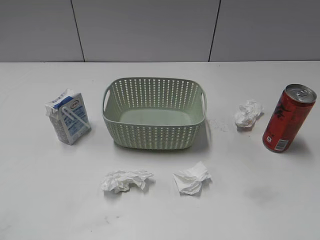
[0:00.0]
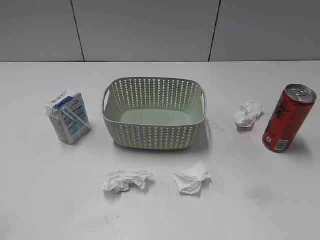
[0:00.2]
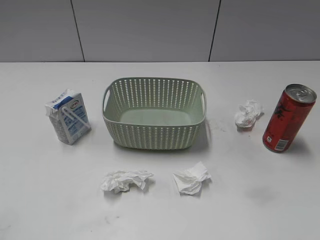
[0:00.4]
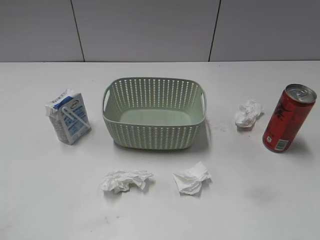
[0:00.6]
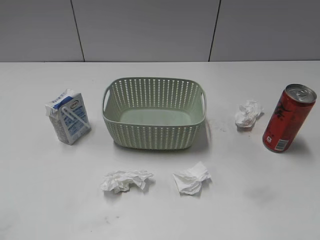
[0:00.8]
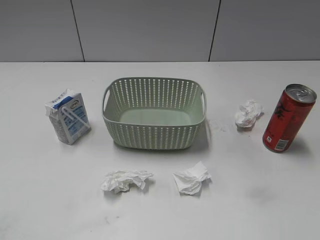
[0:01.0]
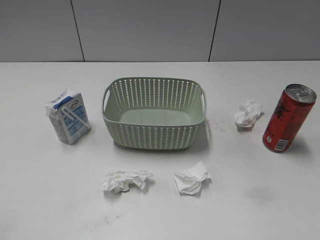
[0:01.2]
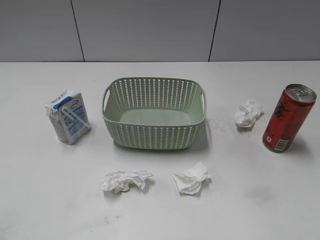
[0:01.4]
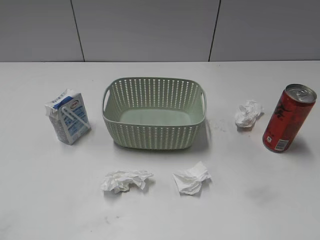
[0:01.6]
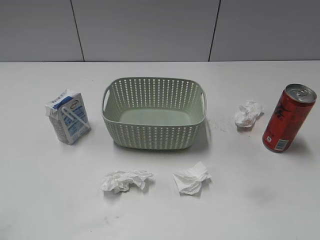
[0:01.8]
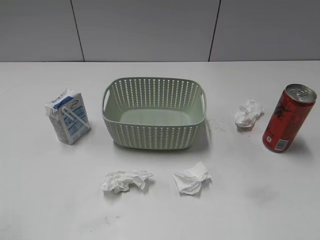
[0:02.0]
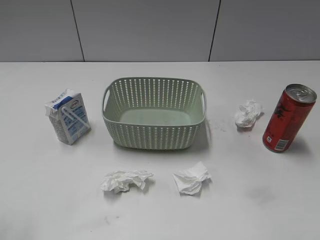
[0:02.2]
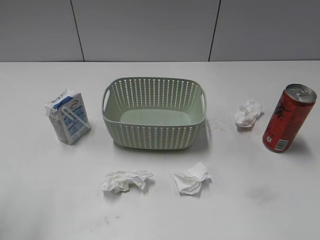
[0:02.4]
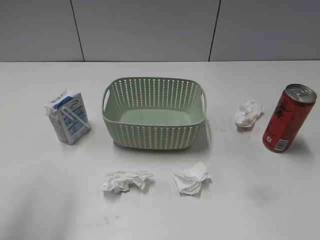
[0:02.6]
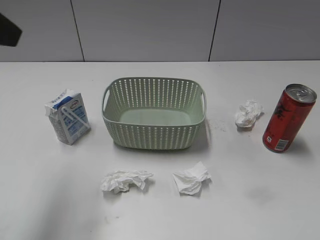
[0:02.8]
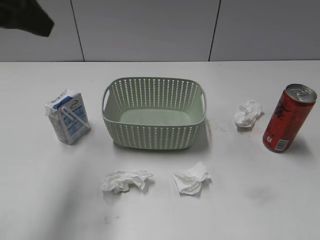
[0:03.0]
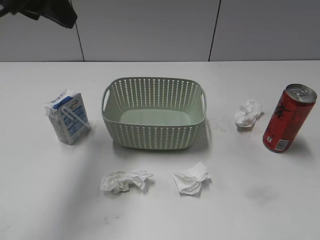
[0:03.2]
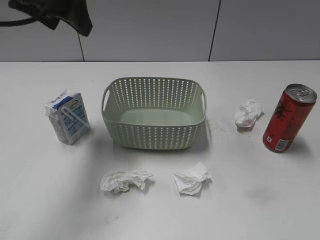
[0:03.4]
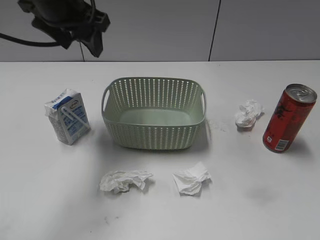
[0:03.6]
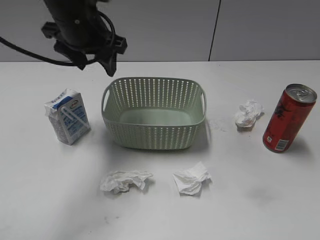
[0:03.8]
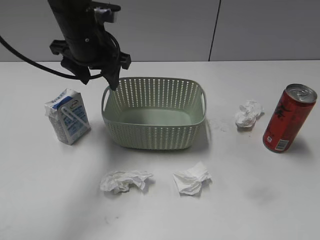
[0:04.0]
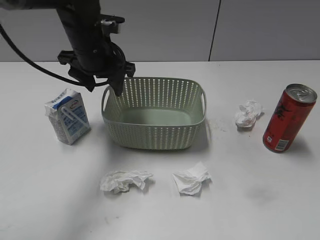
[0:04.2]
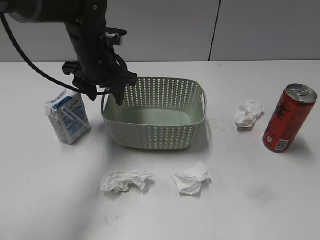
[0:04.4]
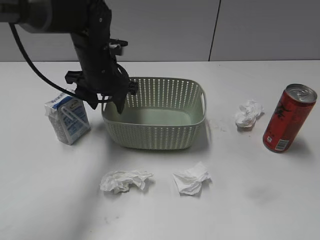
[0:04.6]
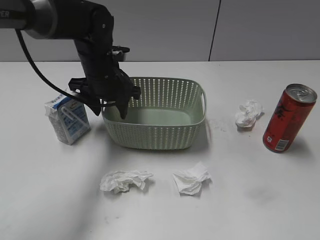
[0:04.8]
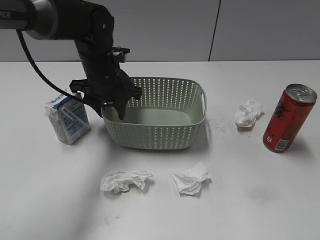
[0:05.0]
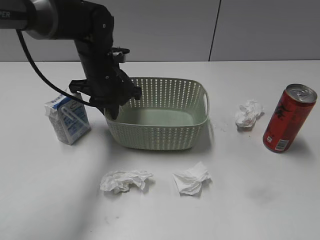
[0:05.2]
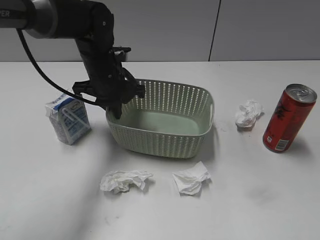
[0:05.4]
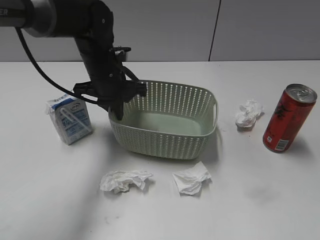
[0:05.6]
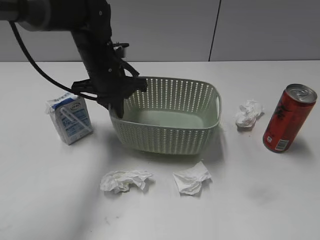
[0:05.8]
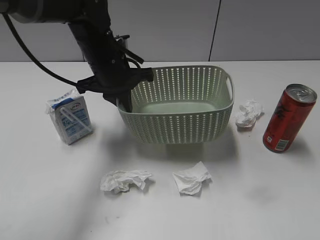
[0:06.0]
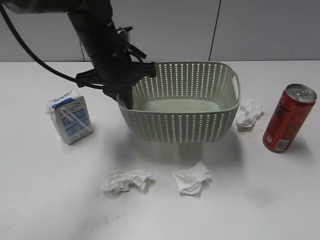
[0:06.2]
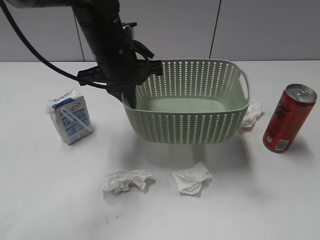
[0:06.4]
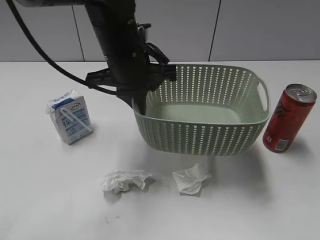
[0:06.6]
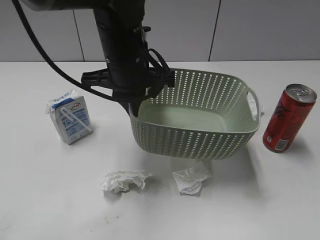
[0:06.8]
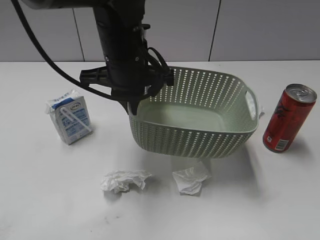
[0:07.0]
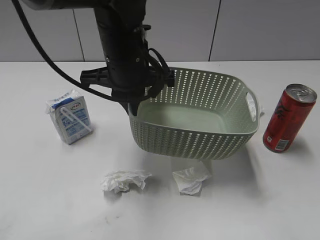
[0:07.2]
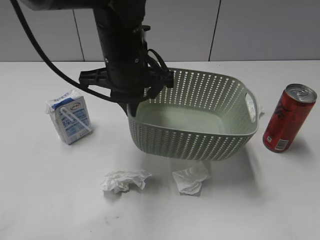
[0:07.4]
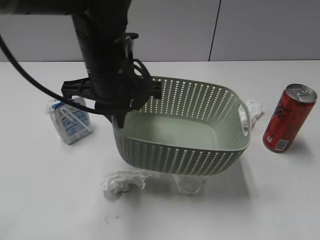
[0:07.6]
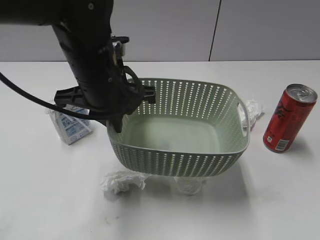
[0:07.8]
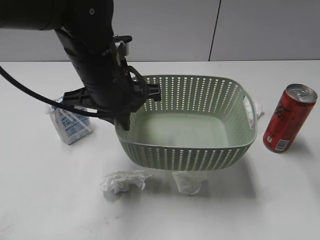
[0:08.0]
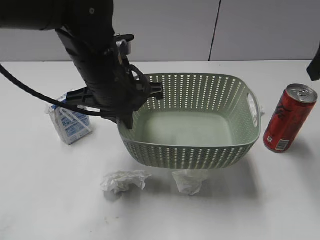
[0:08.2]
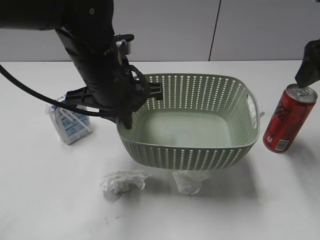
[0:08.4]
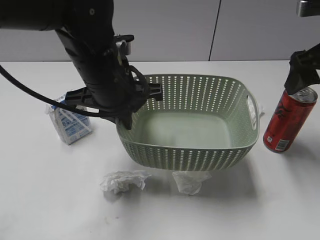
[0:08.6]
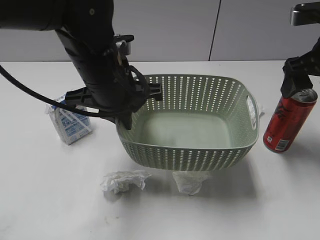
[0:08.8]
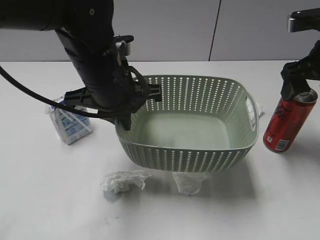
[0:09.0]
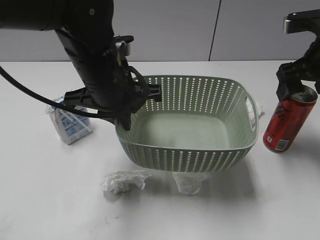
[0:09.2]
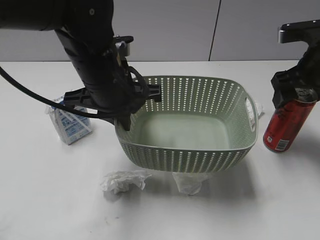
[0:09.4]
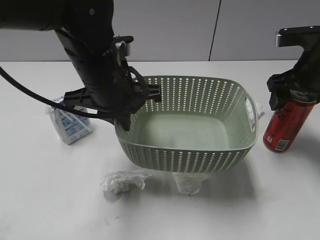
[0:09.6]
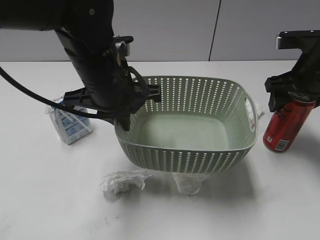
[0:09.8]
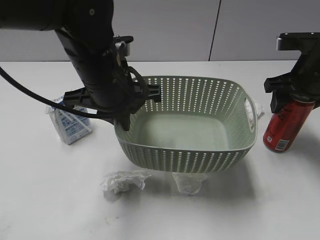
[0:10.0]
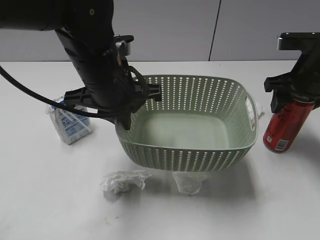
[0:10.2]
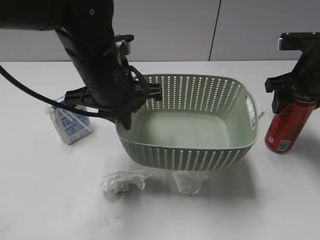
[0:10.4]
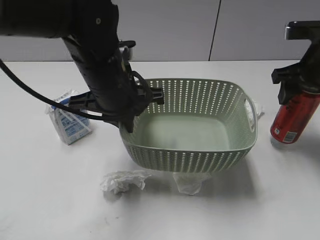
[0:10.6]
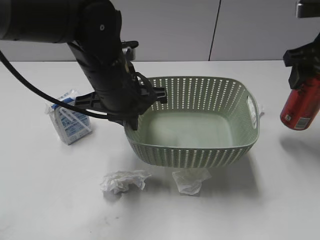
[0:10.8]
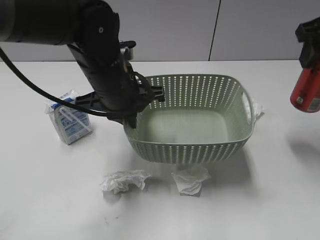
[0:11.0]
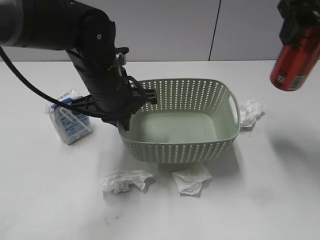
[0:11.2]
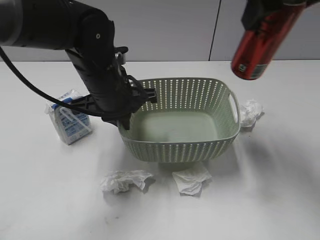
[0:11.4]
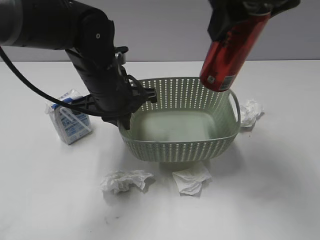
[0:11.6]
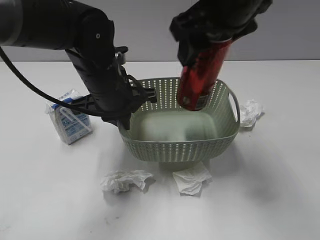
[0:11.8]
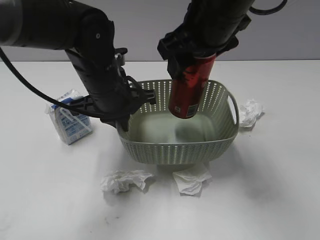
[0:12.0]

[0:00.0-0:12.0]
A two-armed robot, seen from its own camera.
Step, 0:02.8 to 0:05.2: Grasp the basket with left gripper.
Step, 0:05.4 to 0:08.0: Lift the basket with left gripper.
Step, 0:08.2 to 0:10.2: Grasp the cola can with right gripper.
0:01.6 to 0:03.0: The left gripper moves forward and to the right, approximately 25 cm.
0:03.0 to 0:04.4: The left gripper is displaced downward, forward and to the right by some 25 cm.
0:04.4 to 0:06.0: The left gripper closes.
0:06.0 to 0:07.6: The right gripper travels forward and upward by approximately 20 cm, and opens up. Meanwhile the left gripper goes approximately 10 cm backward.
0:07.6 to 0:09.0: The right gripper is displaced forward and downward by some 20 cm.
0:09.0 to 0:10.4: The right gripper closes its fingers.
0:10.4 to 0:12.0: The right gripper is displaced to the left and upward by about 20 cm, while the left gripper changes place by some 5 cm.

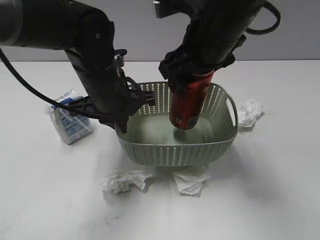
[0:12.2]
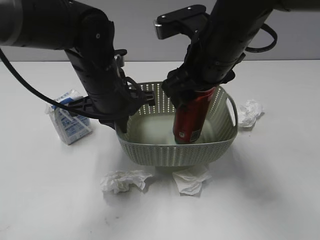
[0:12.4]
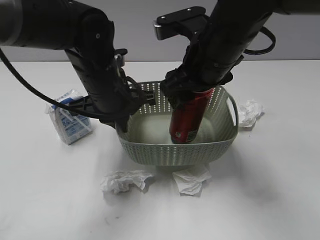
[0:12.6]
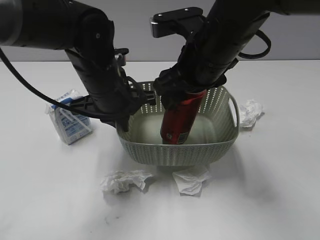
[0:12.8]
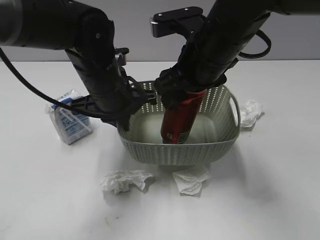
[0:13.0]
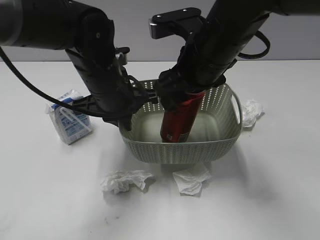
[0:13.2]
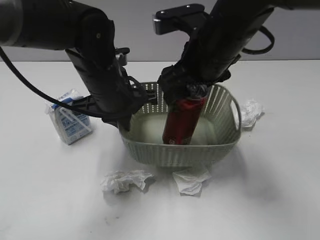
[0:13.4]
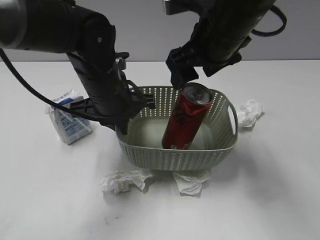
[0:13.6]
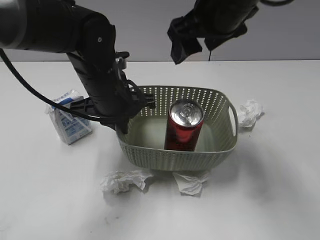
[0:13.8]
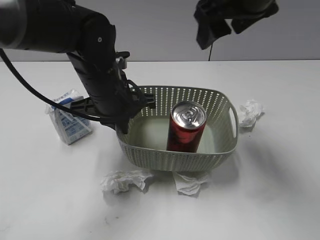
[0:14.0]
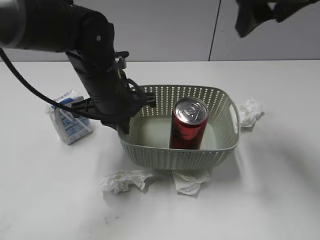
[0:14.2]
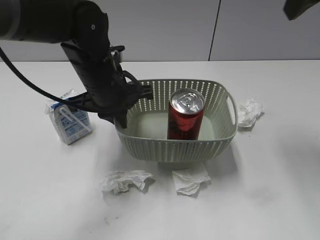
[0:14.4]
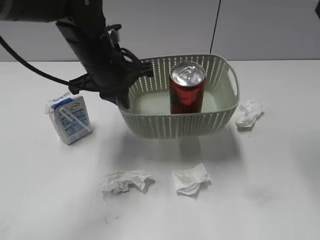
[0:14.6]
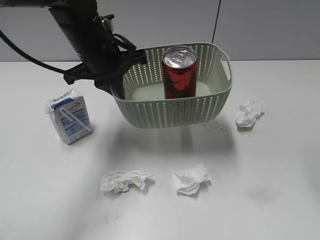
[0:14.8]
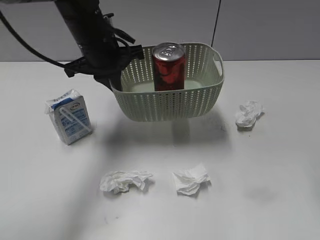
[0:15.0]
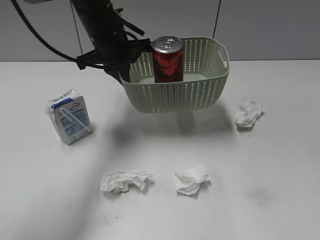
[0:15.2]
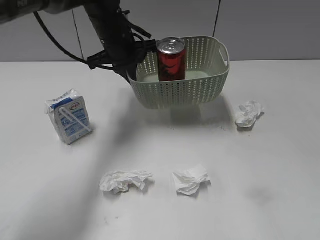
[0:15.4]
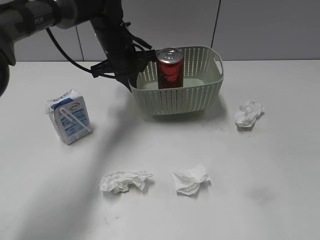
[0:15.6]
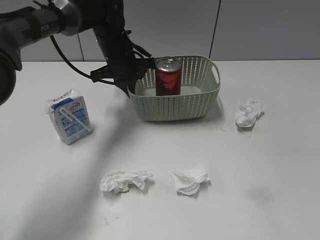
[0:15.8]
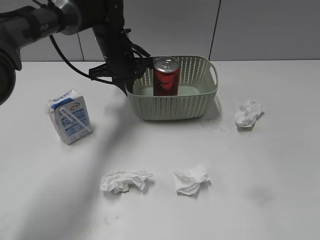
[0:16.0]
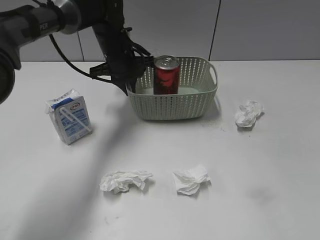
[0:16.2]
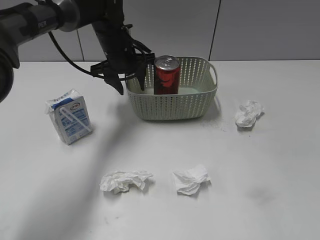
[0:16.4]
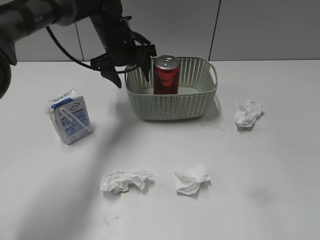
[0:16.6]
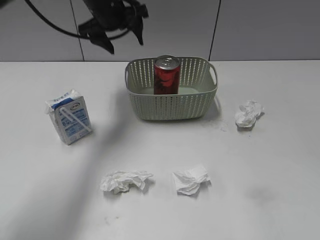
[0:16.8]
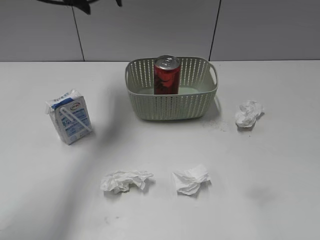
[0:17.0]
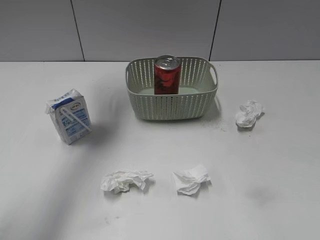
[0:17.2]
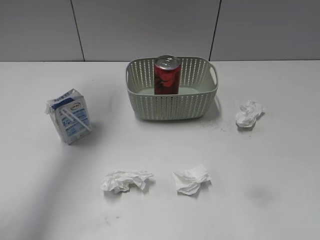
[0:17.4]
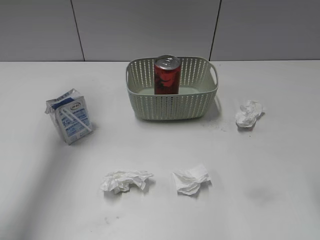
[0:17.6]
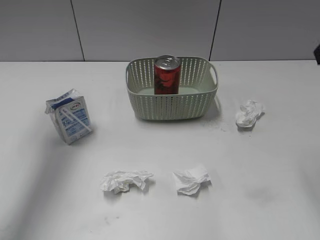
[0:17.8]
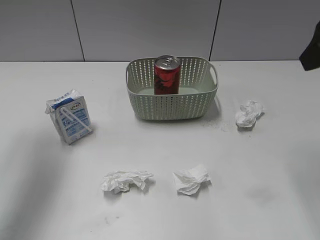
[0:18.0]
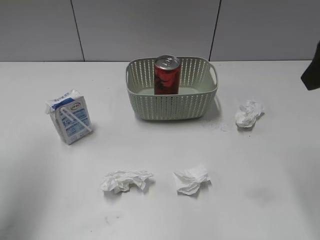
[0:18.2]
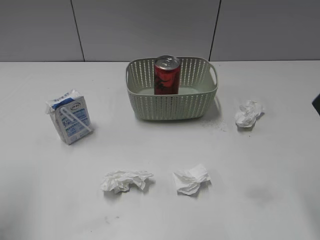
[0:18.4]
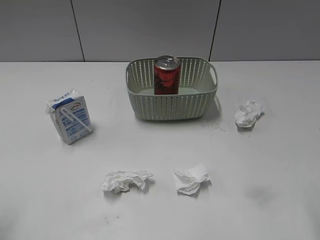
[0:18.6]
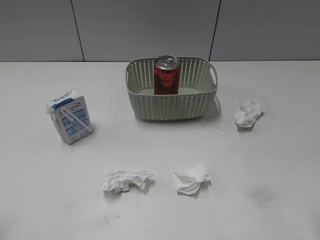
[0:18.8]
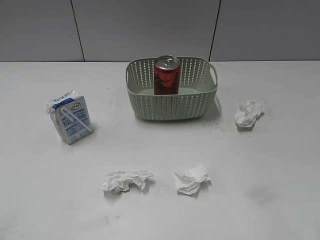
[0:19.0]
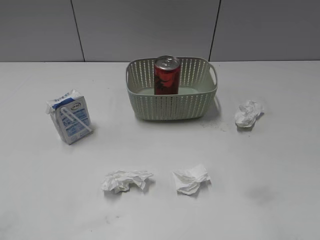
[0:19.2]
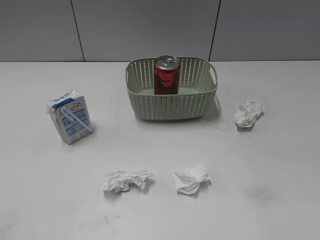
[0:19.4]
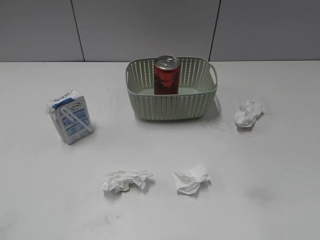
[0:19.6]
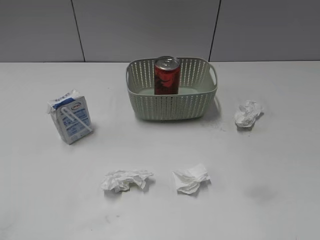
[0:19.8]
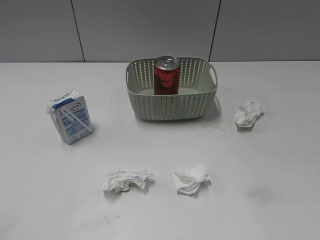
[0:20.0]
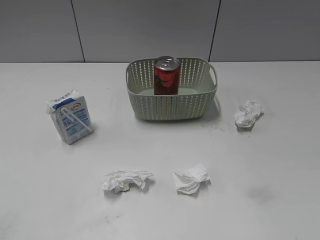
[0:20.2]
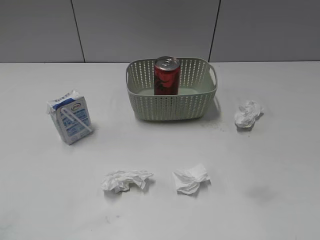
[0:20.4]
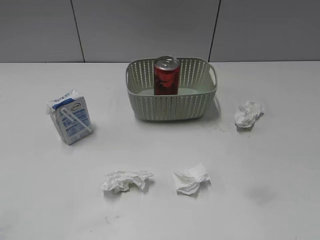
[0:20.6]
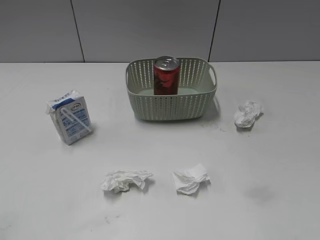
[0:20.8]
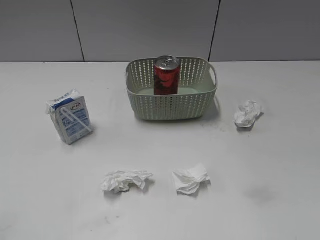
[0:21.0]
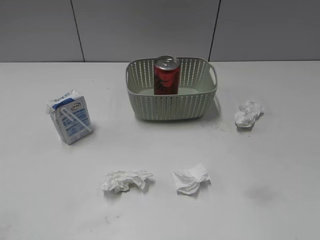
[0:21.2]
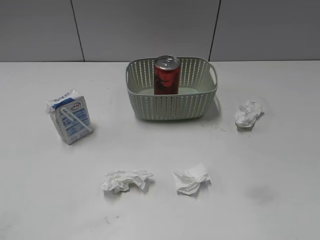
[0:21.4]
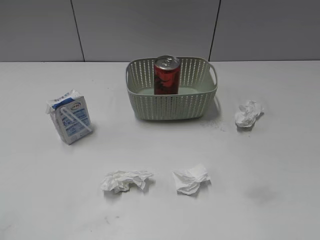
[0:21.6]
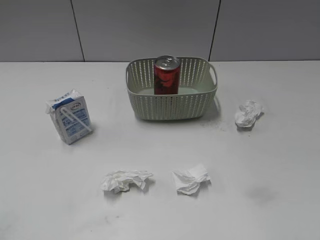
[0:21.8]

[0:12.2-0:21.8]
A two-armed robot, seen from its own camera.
Step, 0:13.6 to 0:16.2: Place the basket on the table with left gripper.
0:12.2 to 0:13.8: The right gripper goes roughly 5 cm upward, and opens its fingers.
0:13.8 to 0:15.4: The right gripper moves backward and to the right, roughly 25 cm; the left gripper travels forward by some 15 cm.
0:15.4 to 0:17.0: The left gripper travels upward and to the left by approximately 15 cm, and opens.
0:17.0 to 0:18.6: The left gripper goes about 40 cm backward and to the left. The right gripper goes some 5 cm downward, and reaches roughly 10 cm forward, then returns.
